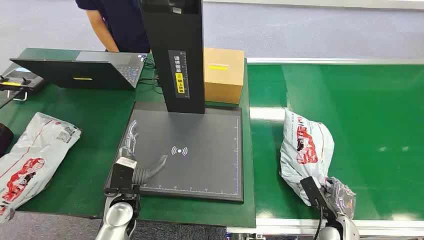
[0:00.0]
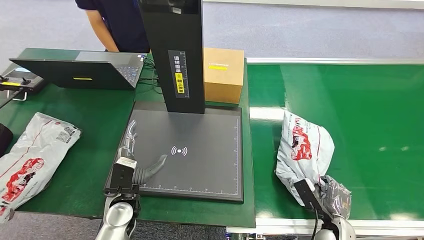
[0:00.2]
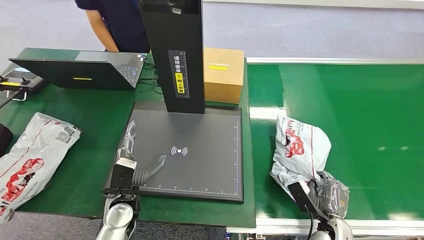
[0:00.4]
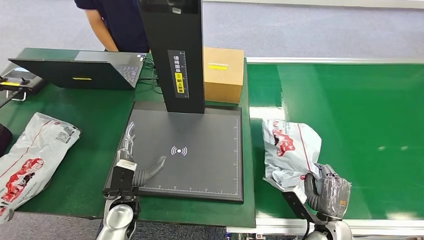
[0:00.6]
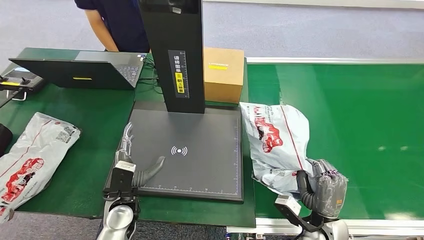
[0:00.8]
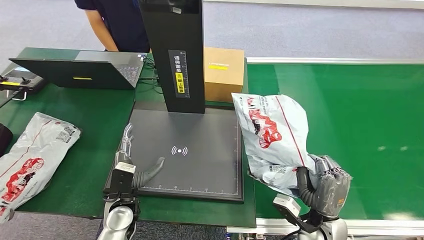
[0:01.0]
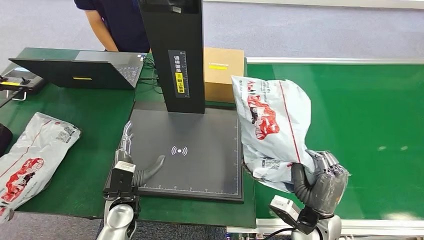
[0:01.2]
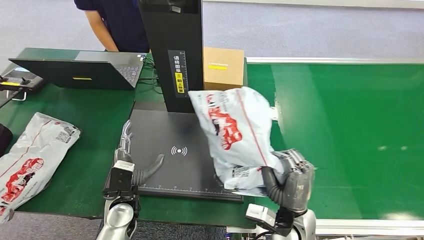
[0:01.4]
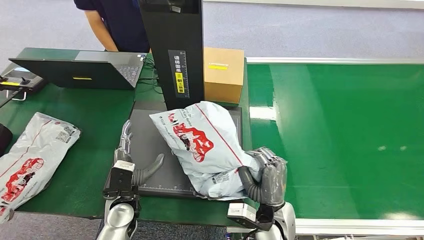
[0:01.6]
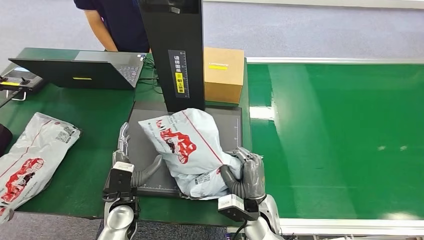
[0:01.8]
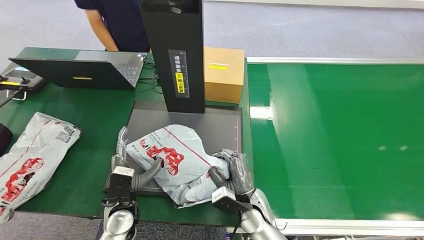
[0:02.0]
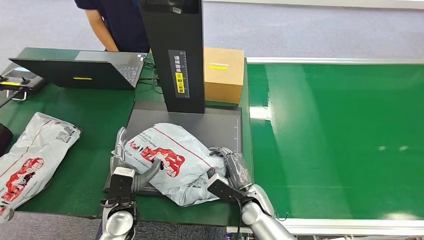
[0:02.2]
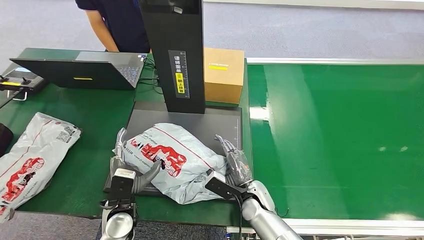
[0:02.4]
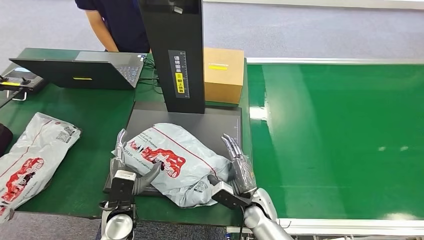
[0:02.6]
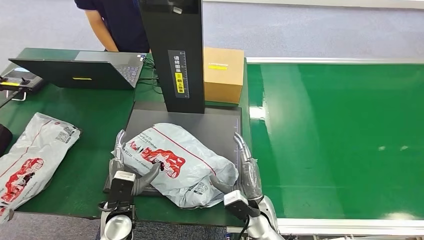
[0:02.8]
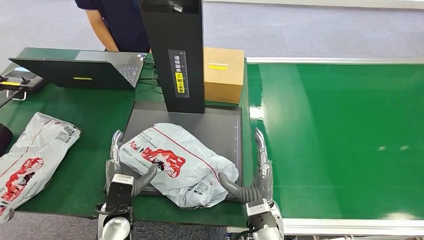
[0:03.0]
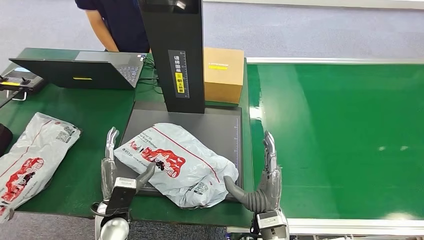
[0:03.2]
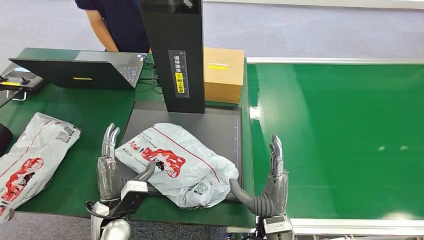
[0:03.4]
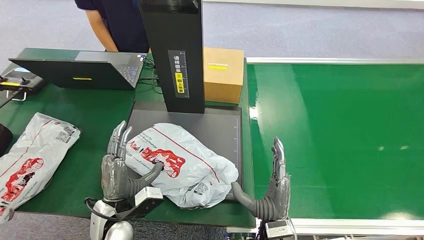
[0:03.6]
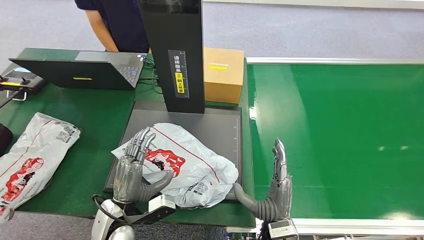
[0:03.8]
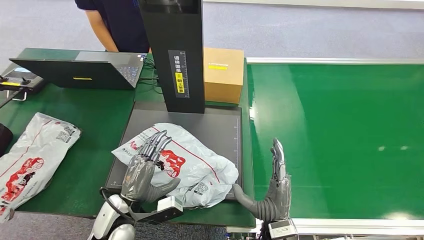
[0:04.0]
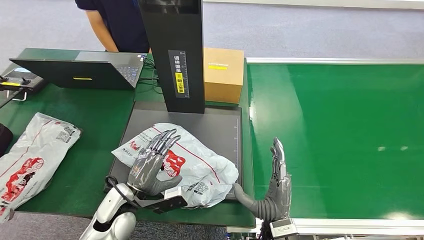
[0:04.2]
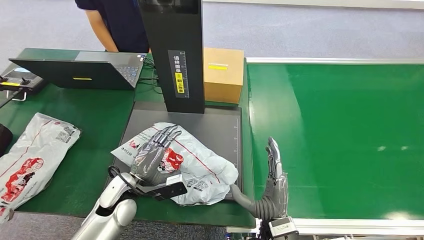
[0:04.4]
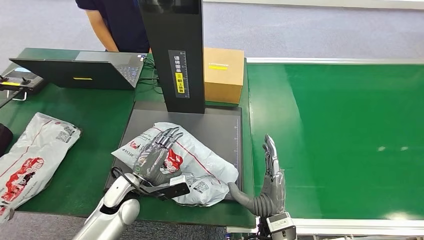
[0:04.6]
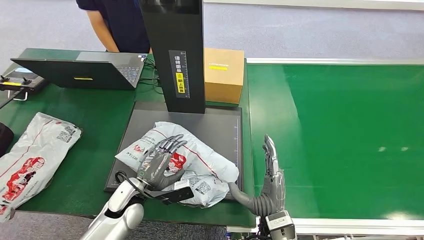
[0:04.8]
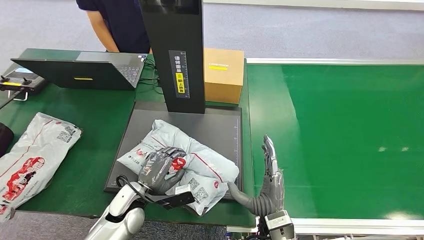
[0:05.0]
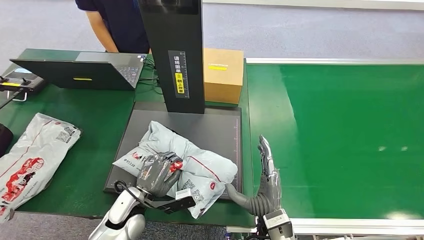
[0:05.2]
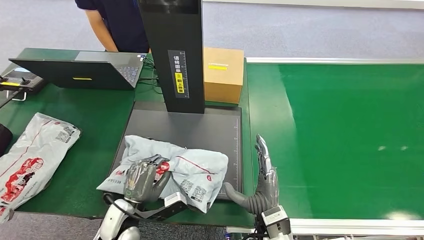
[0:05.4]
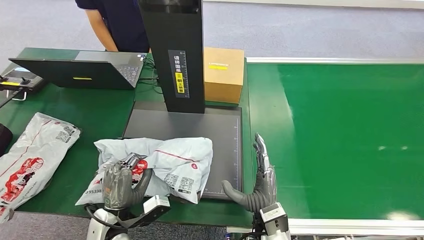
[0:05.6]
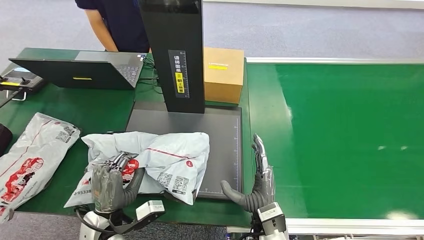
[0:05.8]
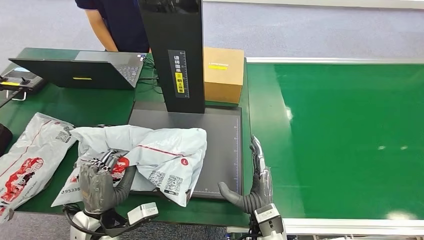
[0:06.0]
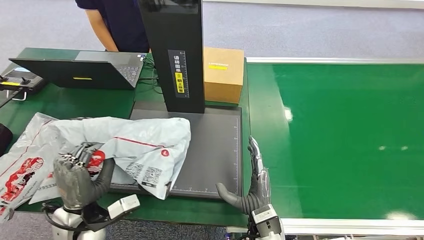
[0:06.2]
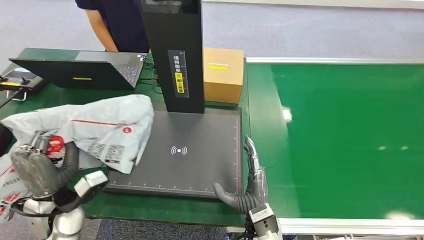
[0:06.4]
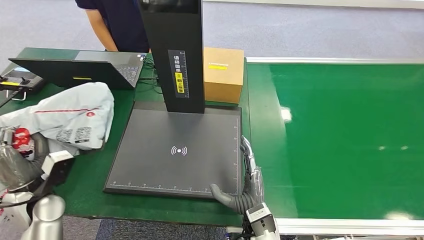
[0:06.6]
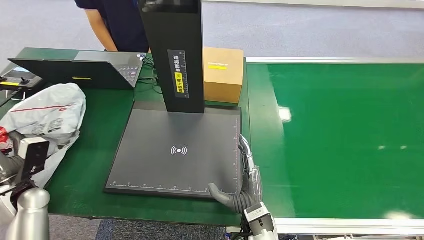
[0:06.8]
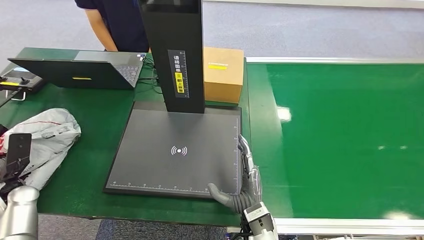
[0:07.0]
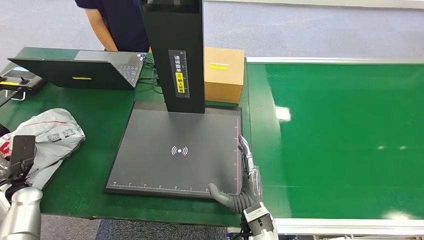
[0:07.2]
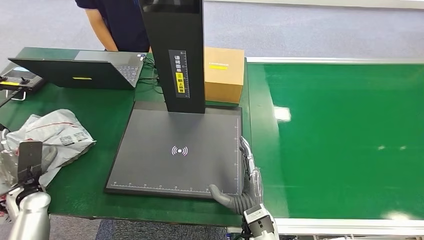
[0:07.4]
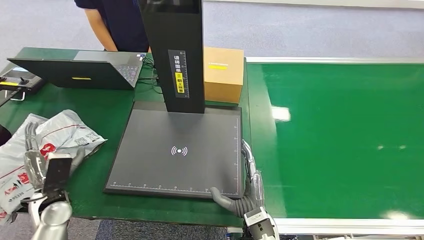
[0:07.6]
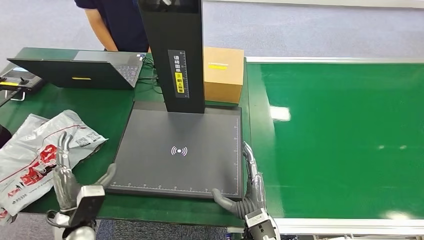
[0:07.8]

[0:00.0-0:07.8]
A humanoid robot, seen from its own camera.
Step, 0:00.0 to 0:01.2: Pick up the package from the conveyor belt.
Step, 0:01.4 to 0:03.0: Place the package onto the inbound machine.
Step, 0:03.2 to 0:06.0: Pick up the package from the inbound machine.
Step, 0:06.4 to 0:07.8: Place the package into the parcel locker.
0:01.6 to 0:03.2: The right hand travels forward and back again, roughly 5 cm each way.
0:03.2 to 0:04.6: The left hand travels forward by some 5 cm.
0:04.6 to 0:06.2: The left hand travels backward, to the left and upward by some 10 cm.
0:06.2 to 0:07.8: The left hand heads downward, covering approximately 5 cm, and moves about 20 cm to the left and comes back.
